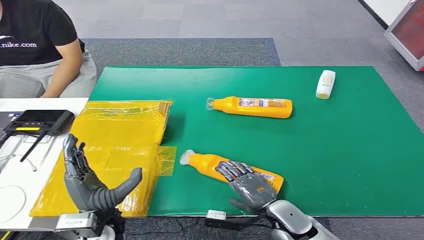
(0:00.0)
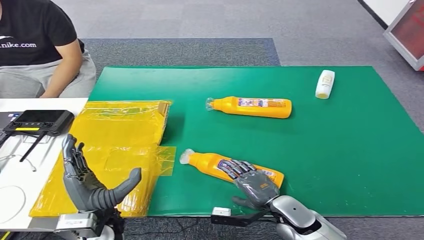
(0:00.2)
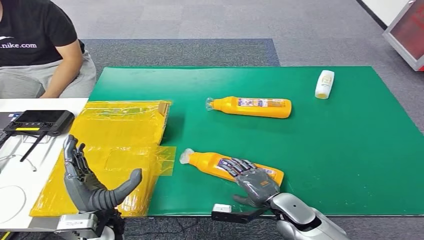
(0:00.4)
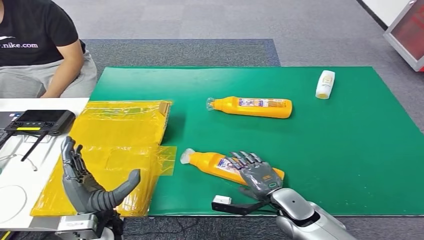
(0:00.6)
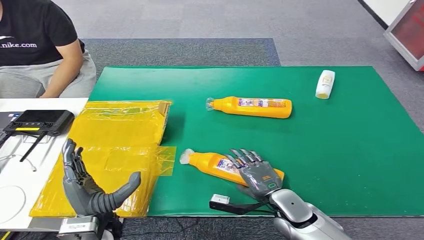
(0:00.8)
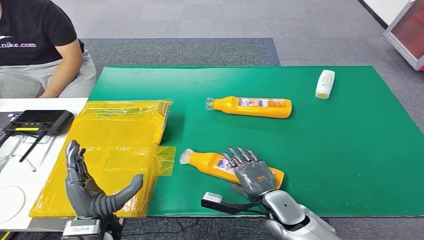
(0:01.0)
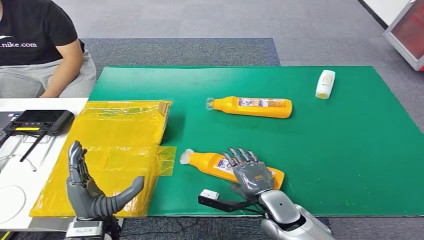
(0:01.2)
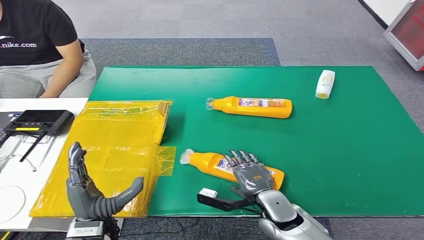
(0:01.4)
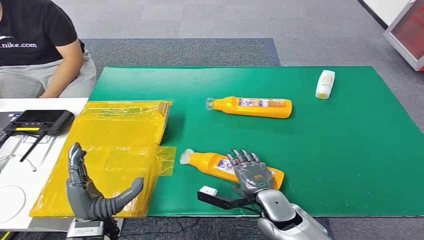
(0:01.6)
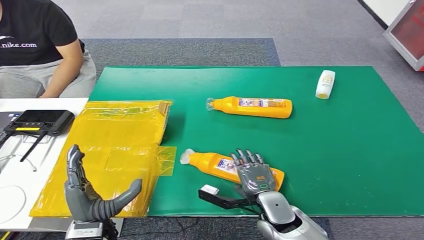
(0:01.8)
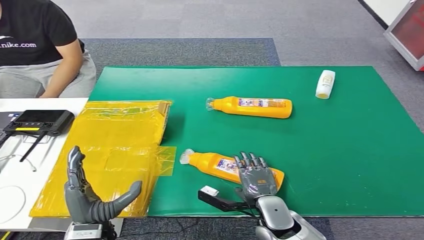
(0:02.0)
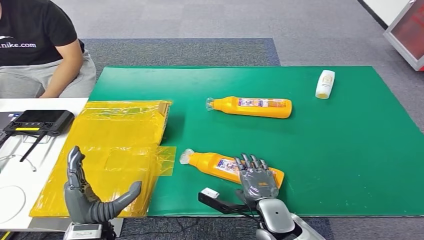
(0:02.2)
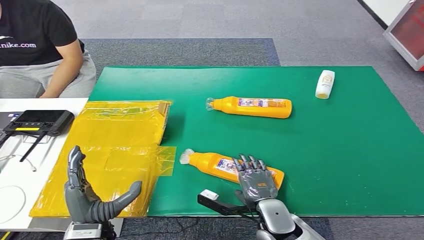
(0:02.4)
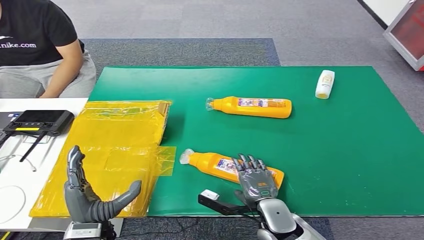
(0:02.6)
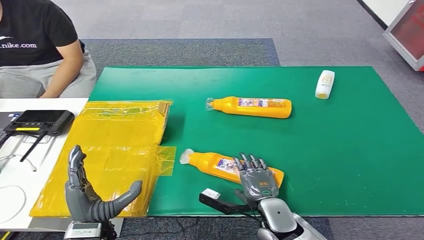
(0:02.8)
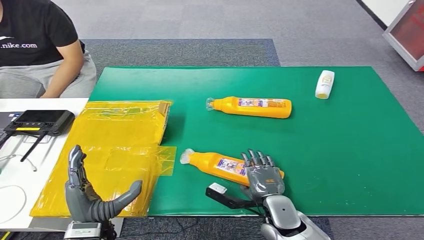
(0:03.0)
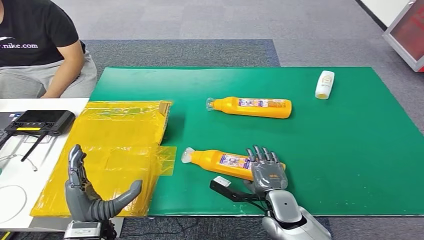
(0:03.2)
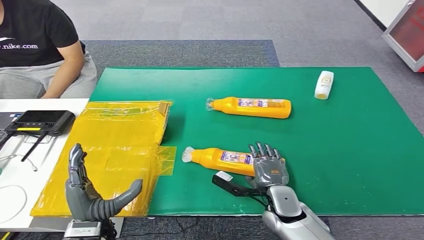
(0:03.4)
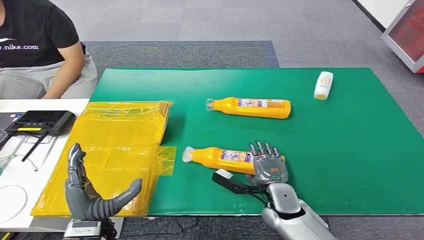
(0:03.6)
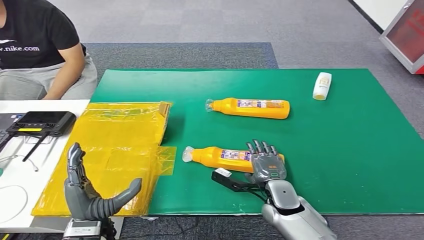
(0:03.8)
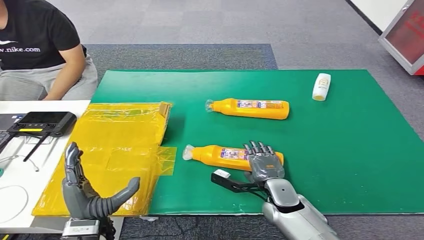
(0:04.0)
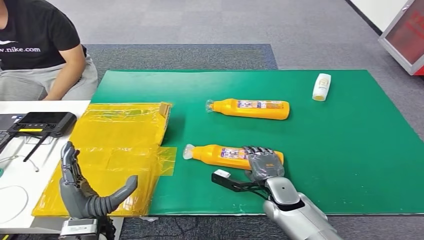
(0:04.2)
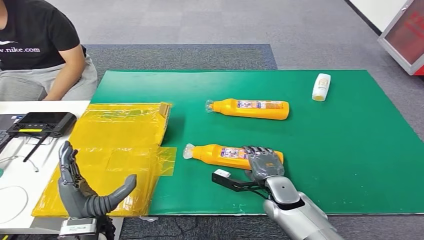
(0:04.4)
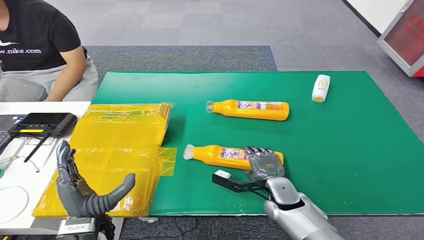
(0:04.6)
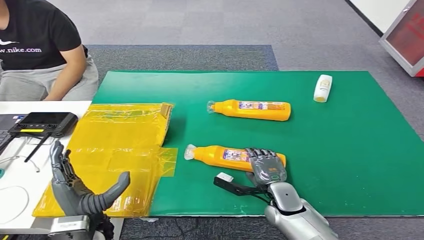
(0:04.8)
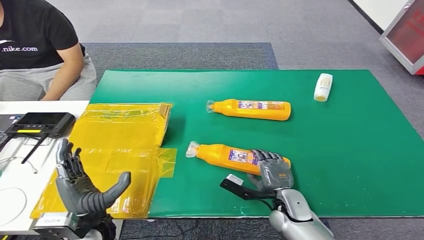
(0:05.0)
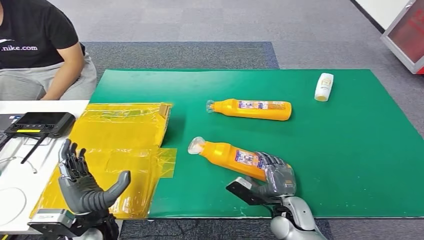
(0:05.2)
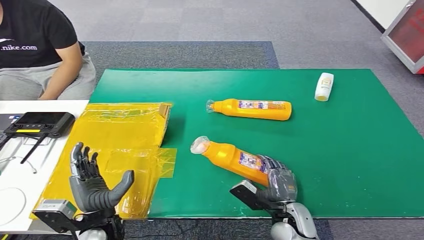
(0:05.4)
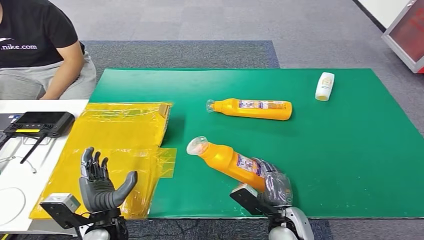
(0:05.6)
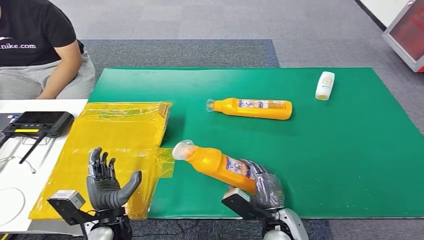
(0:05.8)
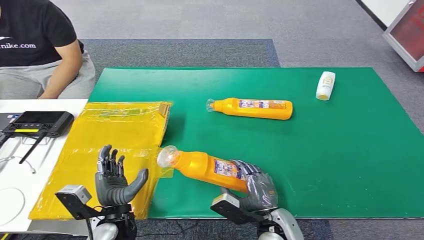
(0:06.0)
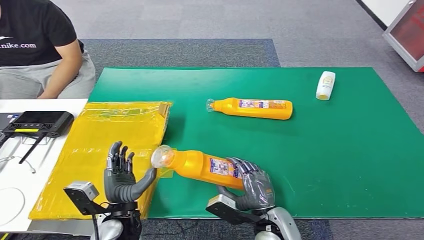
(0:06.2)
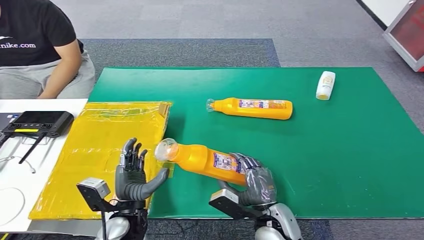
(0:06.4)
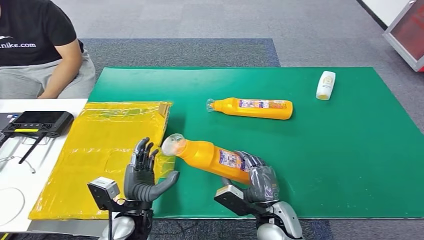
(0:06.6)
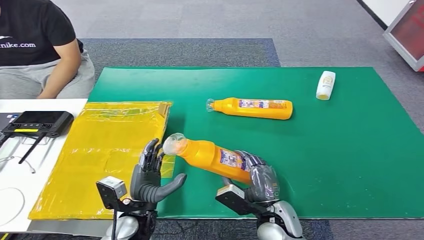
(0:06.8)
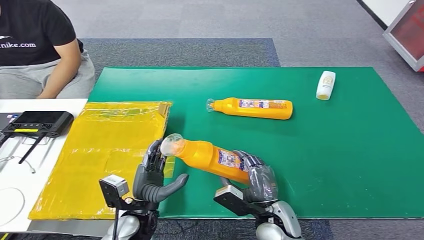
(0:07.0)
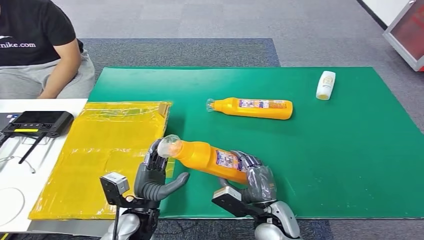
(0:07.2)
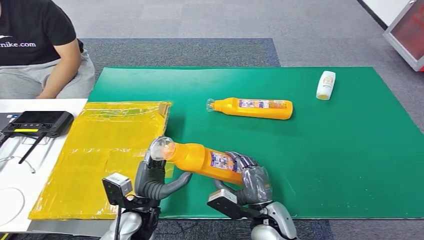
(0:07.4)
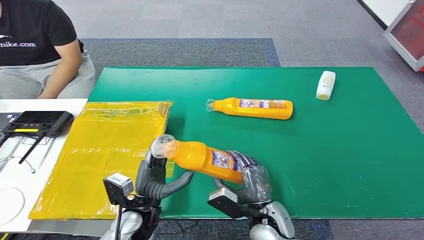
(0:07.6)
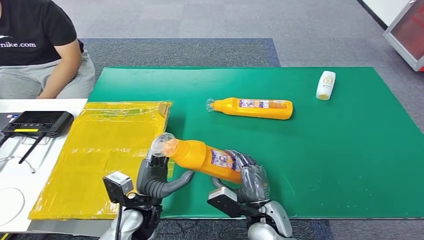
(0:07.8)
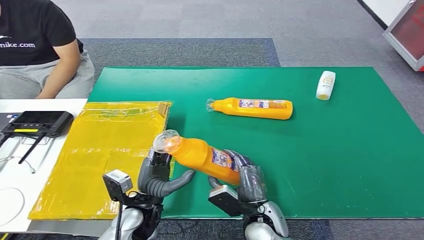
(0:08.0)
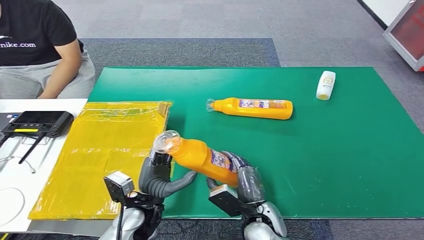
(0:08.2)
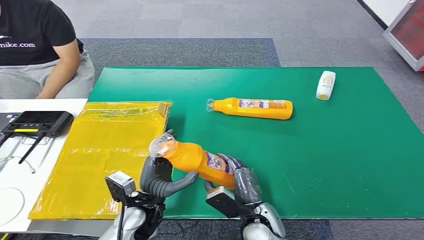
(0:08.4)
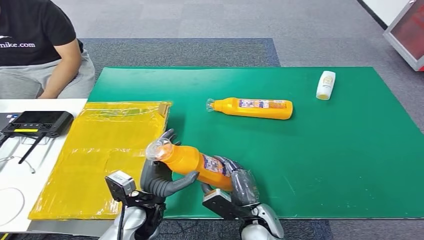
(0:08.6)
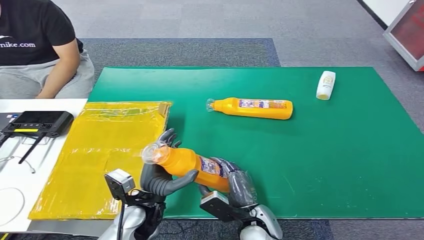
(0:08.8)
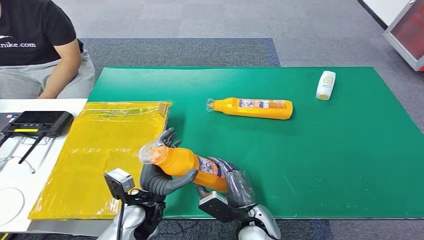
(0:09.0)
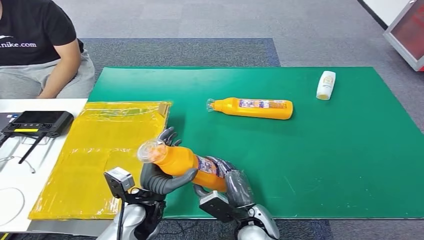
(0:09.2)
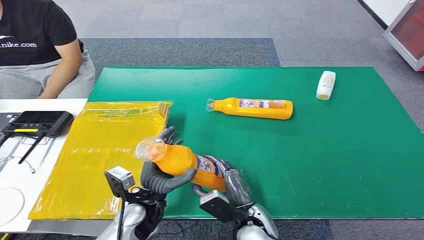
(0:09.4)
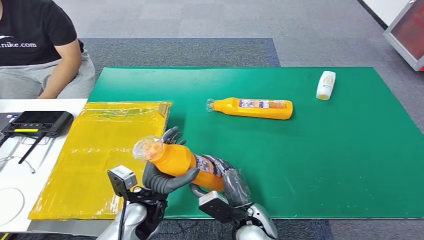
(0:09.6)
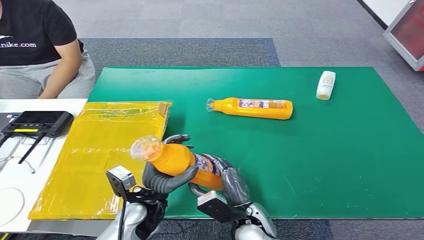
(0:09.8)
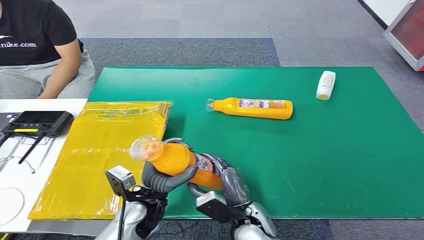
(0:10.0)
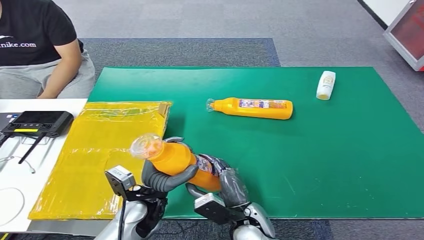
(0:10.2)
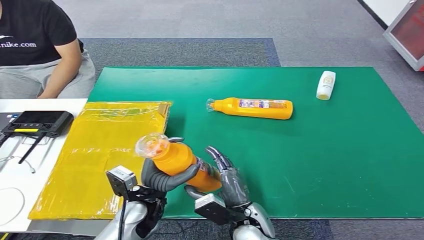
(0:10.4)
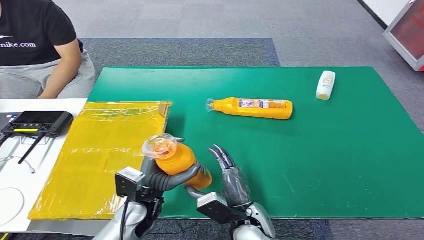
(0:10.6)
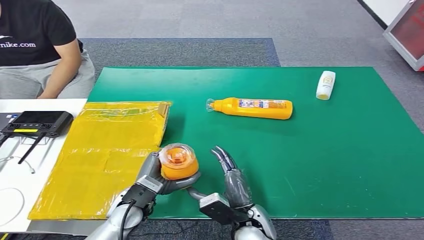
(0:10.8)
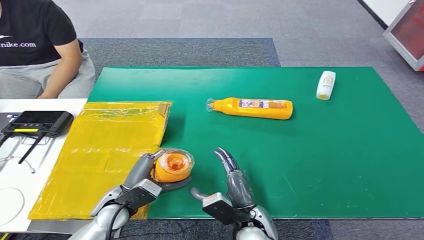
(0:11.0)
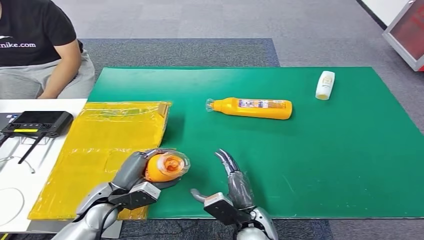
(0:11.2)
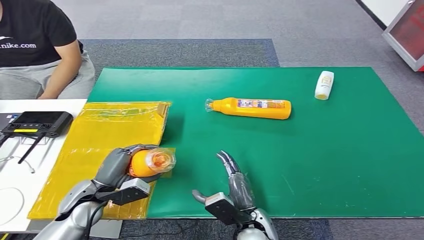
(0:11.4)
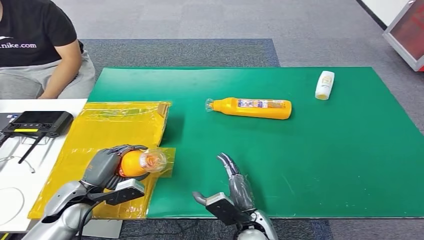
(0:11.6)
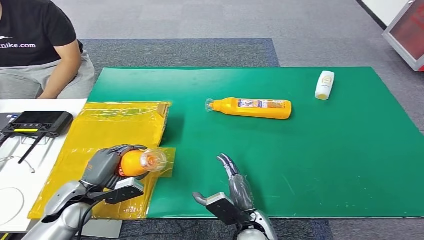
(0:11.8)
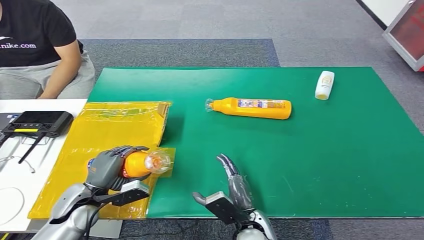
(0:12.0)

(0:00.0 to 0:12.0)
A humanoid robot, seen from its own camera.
Step, 0:00.0 - 0:06.2: Pick up the bottle from the table.
0:01.6 - 0:03.0: There are only small adjustments of the hands.
0:07.6 - 0:10.4: The hands move only a little.
0:10.4 - 0:12.0: The left hand moves to the left, some 15 cm.

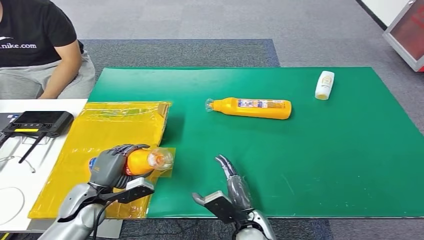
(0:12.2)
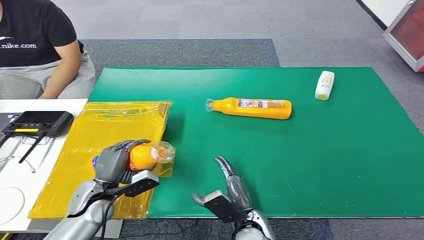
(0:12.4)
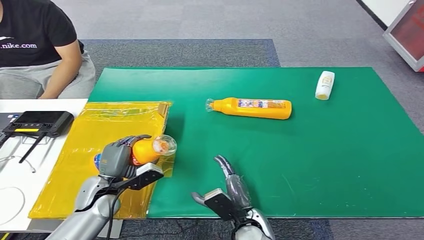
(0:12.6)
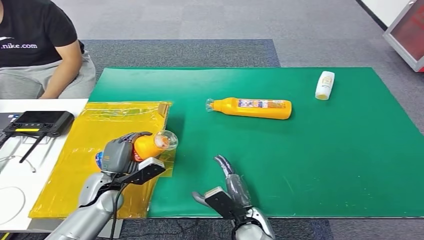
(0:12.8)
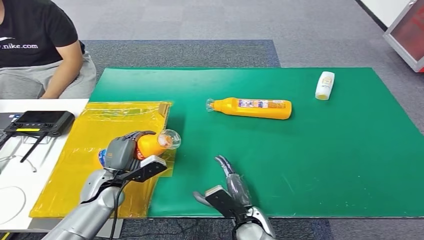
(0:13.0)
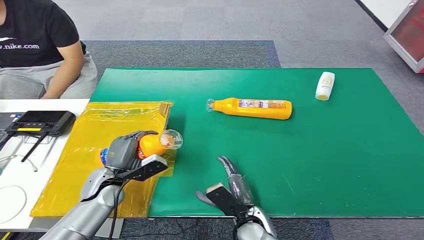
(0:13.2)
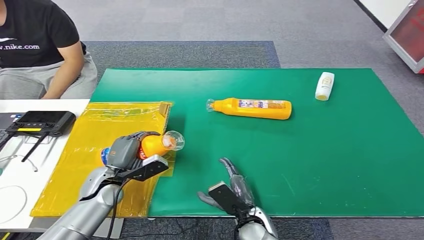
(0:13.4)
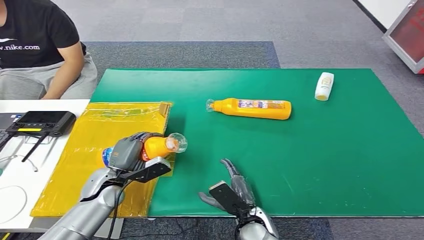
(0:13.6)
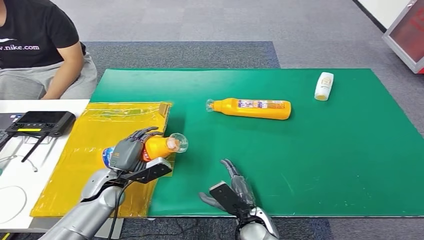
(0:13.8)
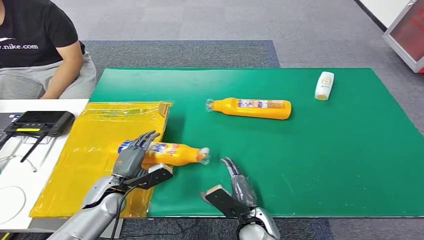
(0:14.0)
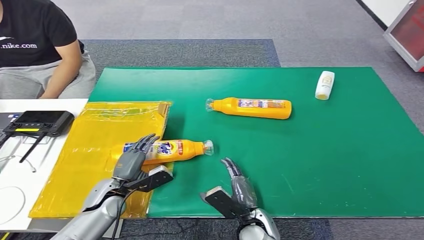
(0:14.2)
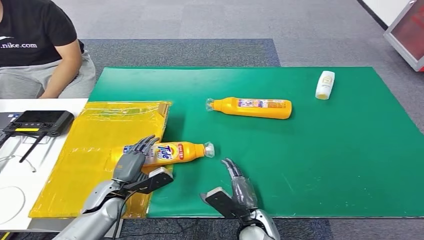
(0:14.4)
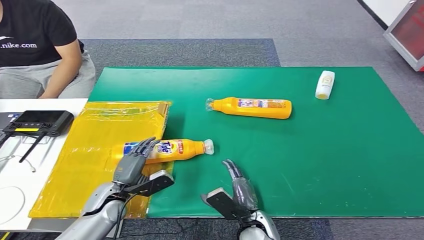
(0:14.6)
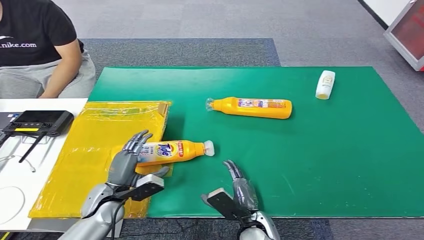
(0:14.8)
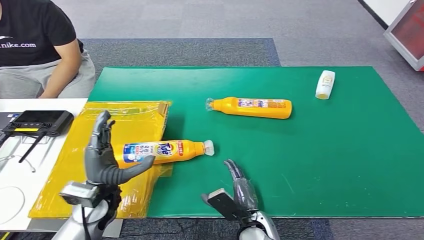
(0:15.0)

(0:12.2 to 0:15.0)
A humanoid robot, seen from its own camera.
Step, 0:12.2 - 0:15.0: Turn the bottle to the front side.
0:12.2 - 0:13.6: The left hand shifts some 5 cm forward.
0:13.6 - 0:15.0: The left hand shifts some 10 cm upward and backward.

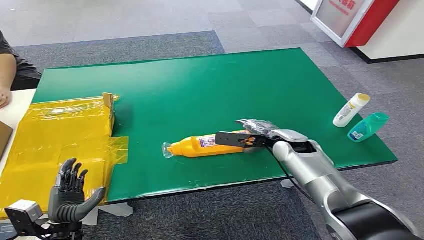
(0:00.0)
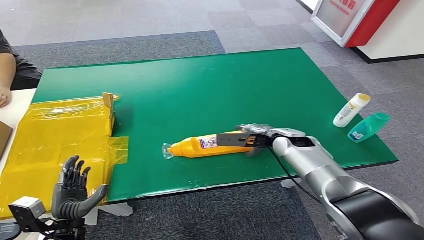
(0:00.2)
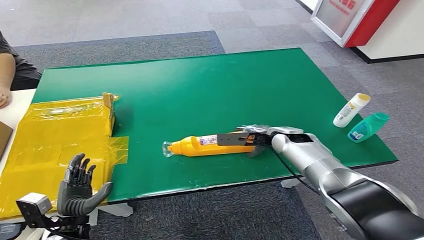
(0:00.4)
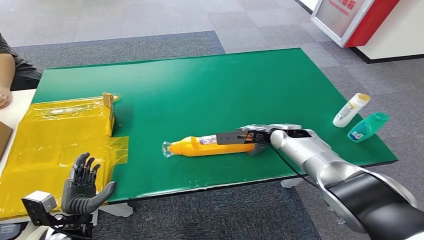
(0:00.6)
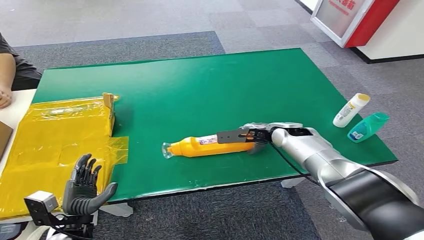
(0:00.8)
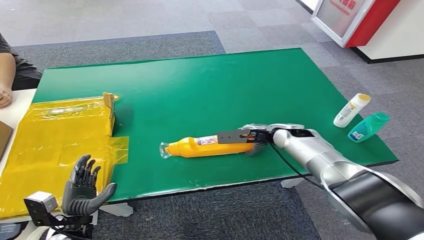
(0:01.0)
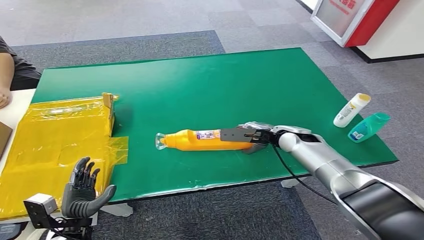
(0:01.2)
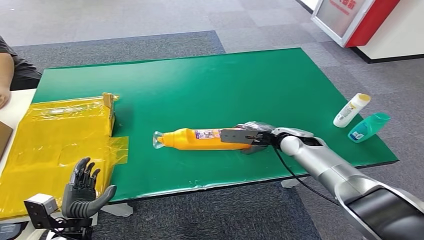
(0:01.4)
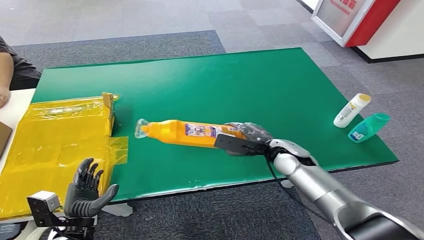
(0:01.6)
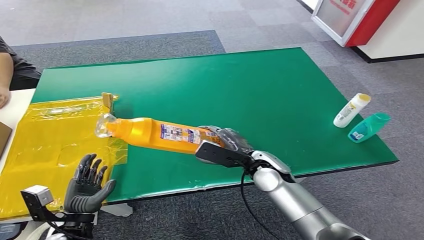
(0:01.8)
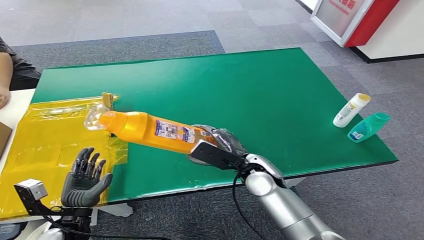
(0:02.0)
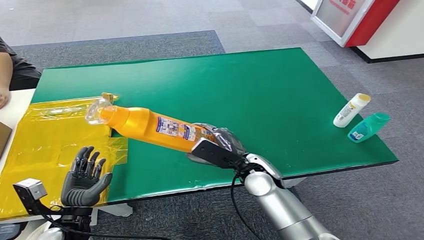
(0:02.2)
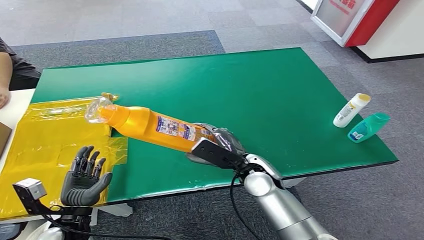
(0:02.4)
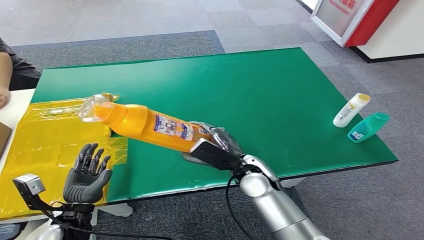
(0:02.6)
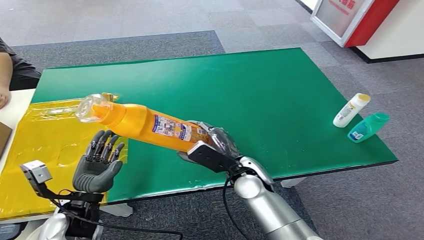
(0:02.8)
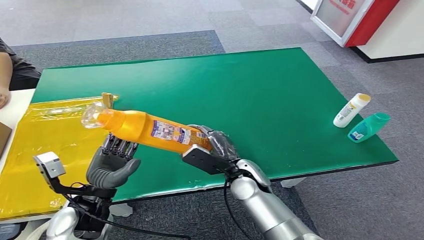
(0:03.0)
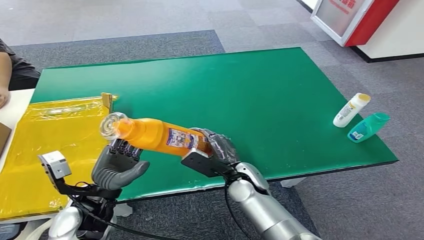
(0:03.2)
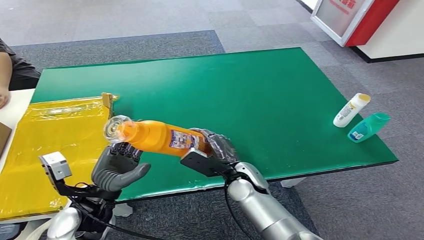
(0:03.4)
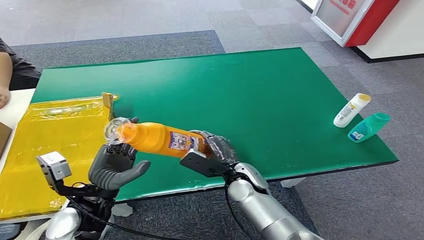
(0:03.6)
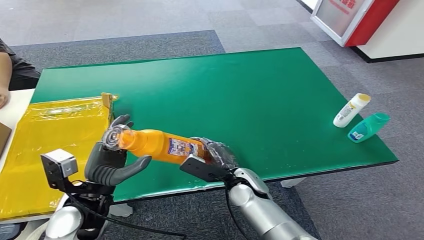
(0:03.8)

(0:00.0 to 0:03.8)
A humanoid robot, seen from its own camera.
Step, 0:00.0 - 0:02.0: Pick up the bottle from the table.
0:01.2 - 0:02.6: The left hand ends up about 5 cm from where it was, while the right hand travels to the left and backward by about 15 cm.
0:02.6 - 0:03.8: The left hand goes some 10 cm upward and to the right, while the right hand is displaced downward by about 5 cm.
